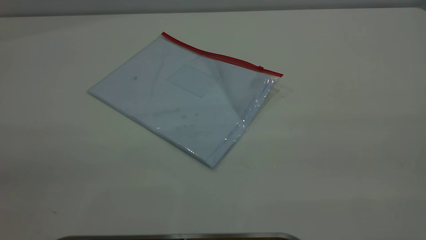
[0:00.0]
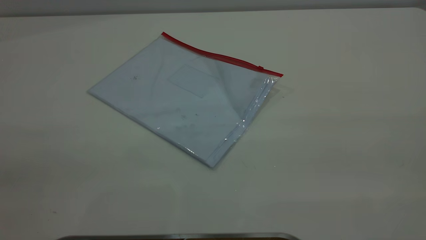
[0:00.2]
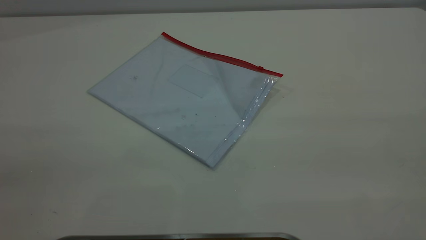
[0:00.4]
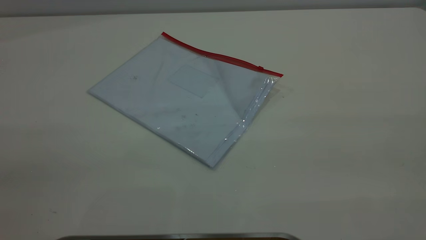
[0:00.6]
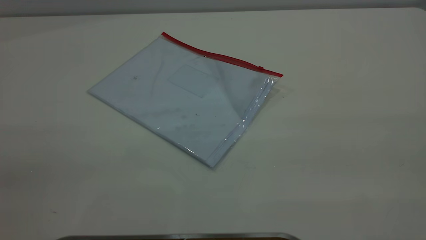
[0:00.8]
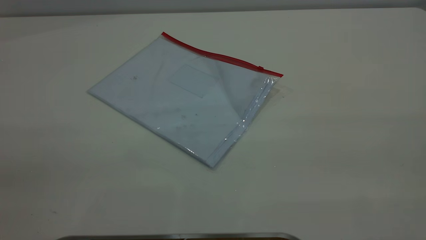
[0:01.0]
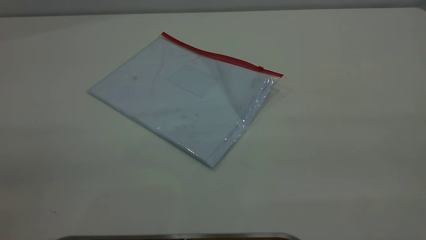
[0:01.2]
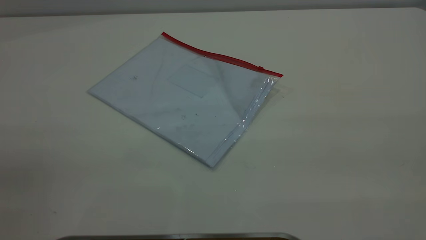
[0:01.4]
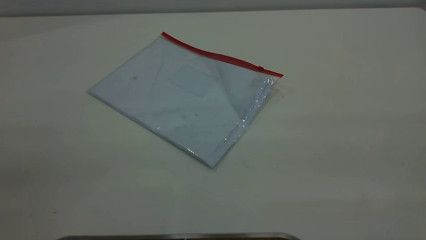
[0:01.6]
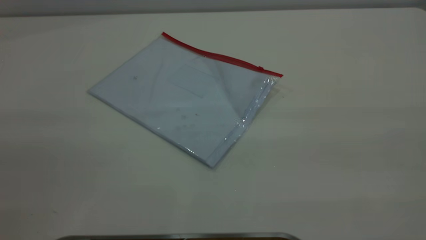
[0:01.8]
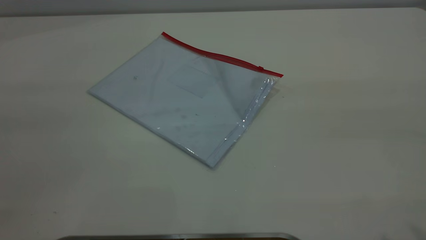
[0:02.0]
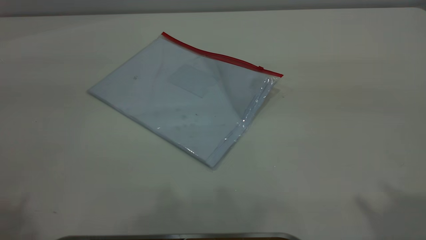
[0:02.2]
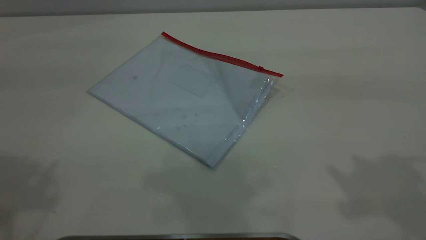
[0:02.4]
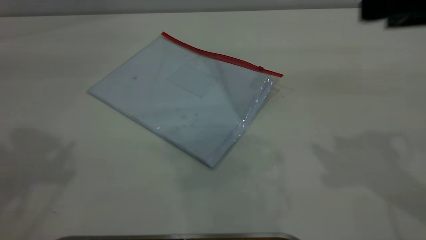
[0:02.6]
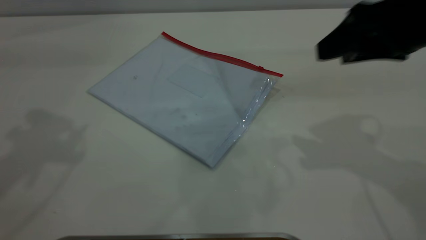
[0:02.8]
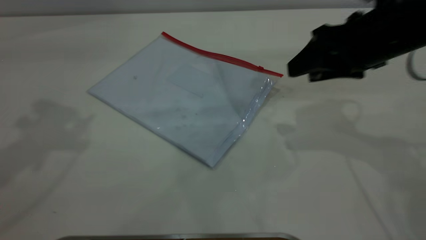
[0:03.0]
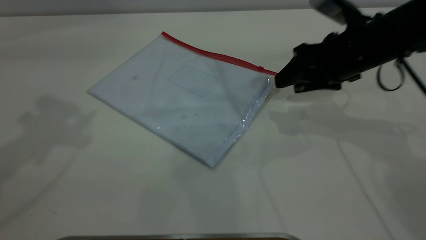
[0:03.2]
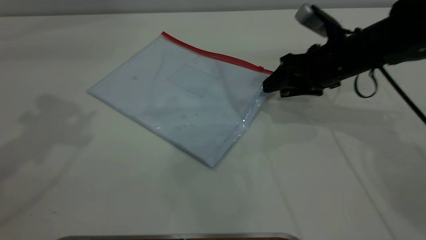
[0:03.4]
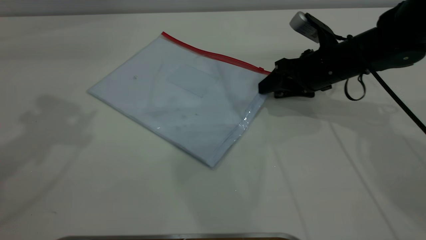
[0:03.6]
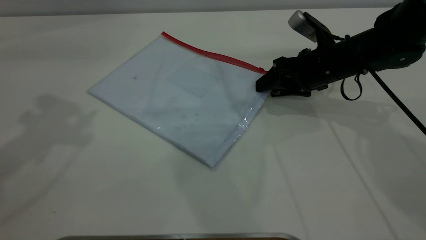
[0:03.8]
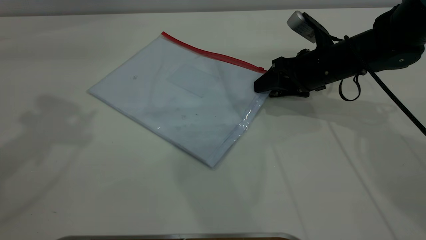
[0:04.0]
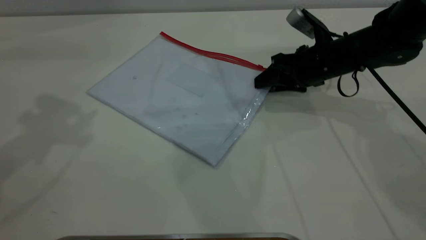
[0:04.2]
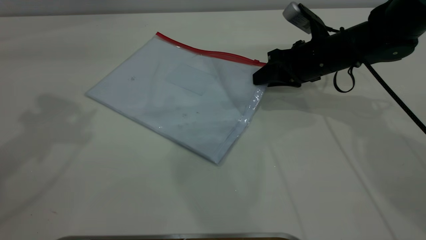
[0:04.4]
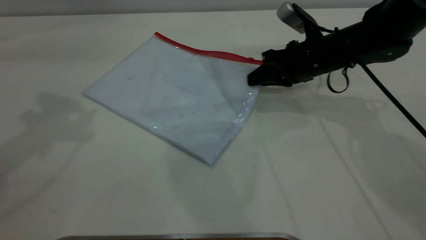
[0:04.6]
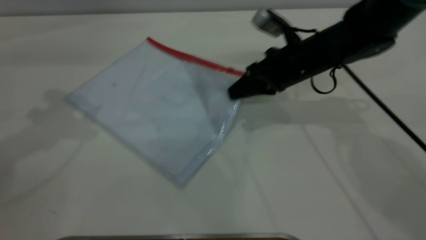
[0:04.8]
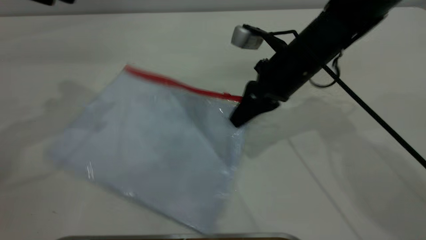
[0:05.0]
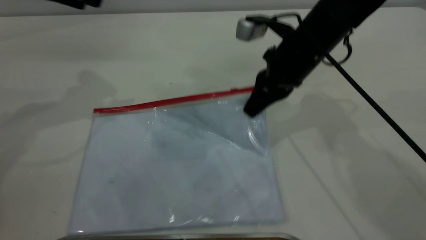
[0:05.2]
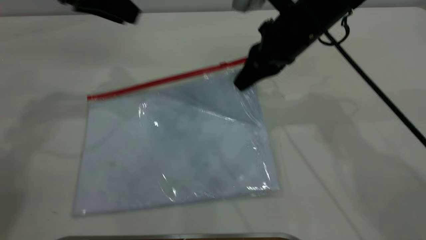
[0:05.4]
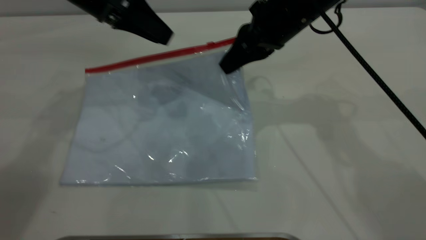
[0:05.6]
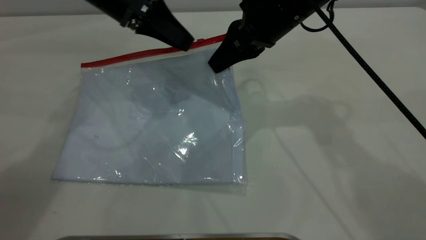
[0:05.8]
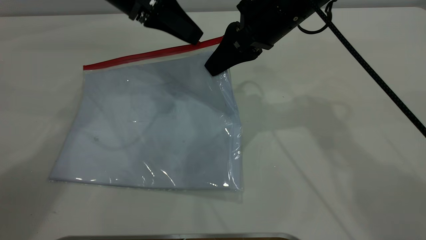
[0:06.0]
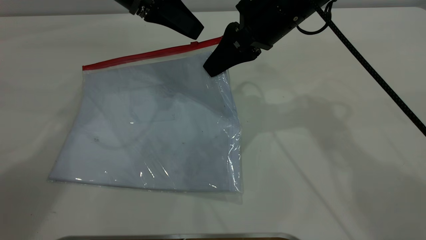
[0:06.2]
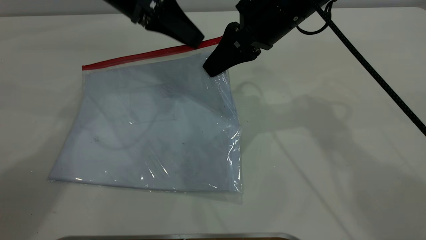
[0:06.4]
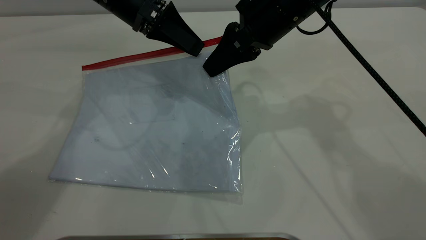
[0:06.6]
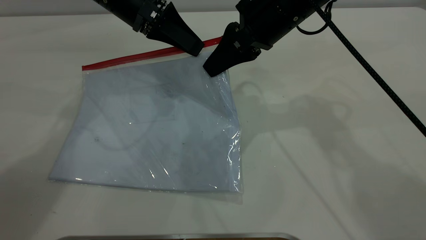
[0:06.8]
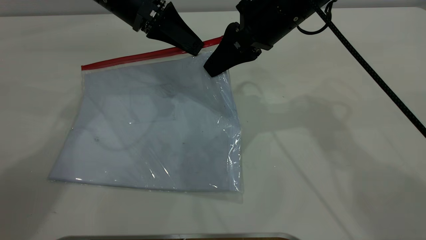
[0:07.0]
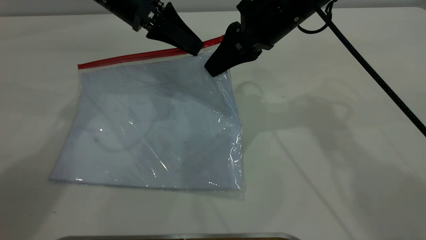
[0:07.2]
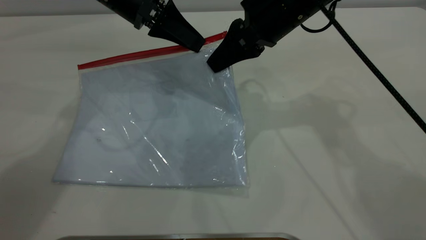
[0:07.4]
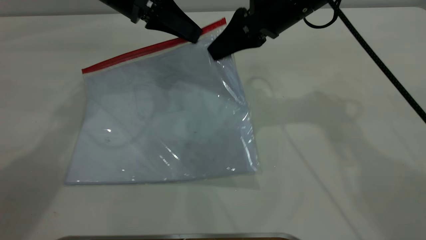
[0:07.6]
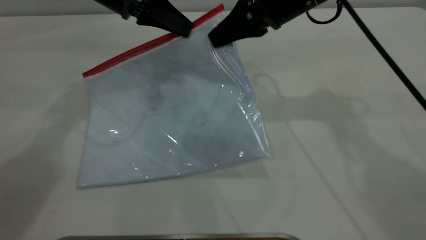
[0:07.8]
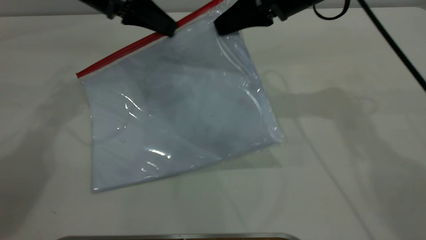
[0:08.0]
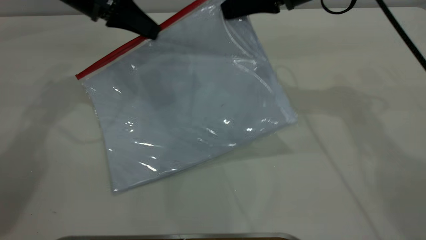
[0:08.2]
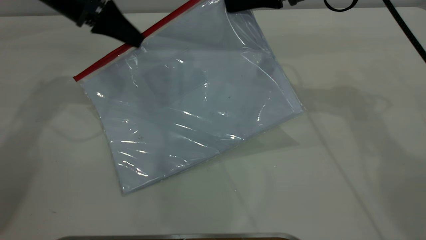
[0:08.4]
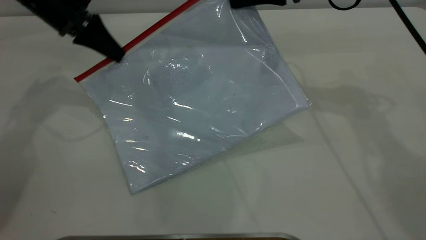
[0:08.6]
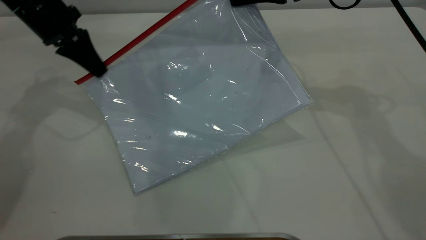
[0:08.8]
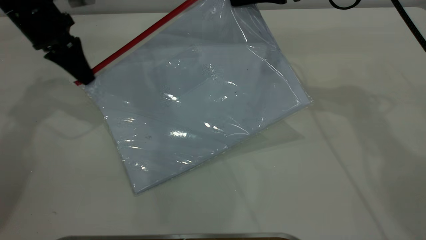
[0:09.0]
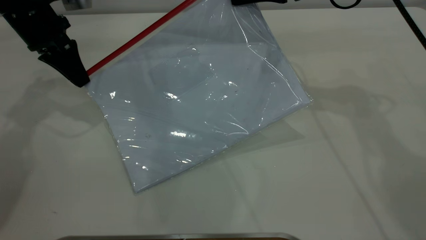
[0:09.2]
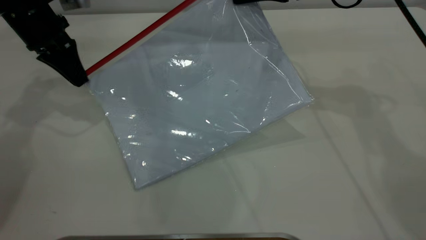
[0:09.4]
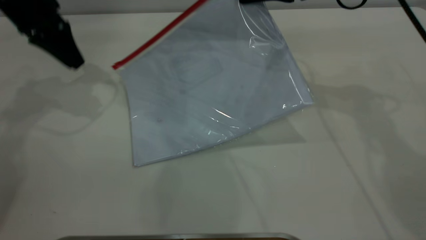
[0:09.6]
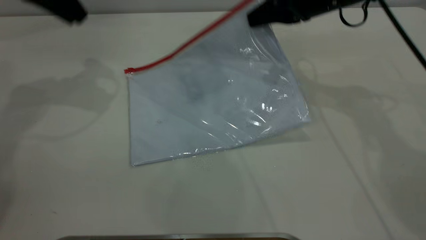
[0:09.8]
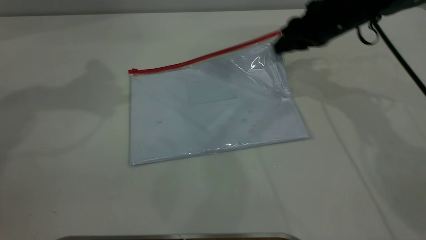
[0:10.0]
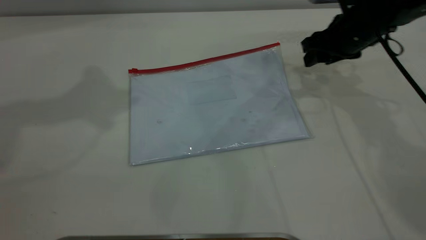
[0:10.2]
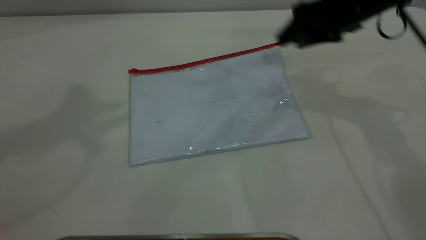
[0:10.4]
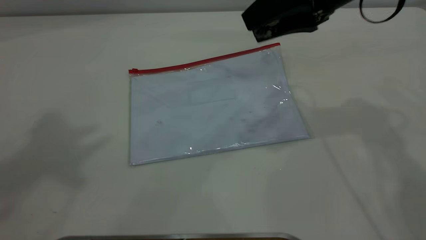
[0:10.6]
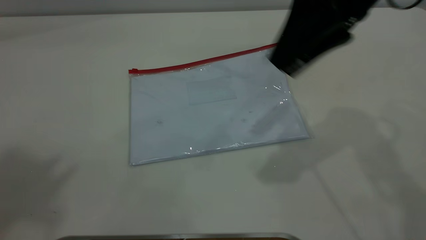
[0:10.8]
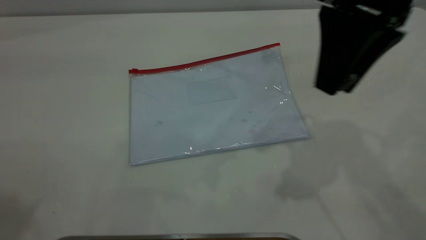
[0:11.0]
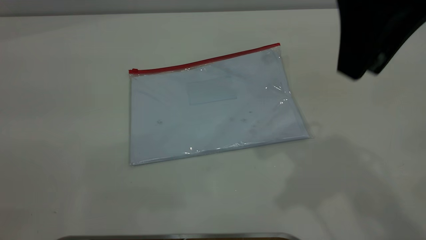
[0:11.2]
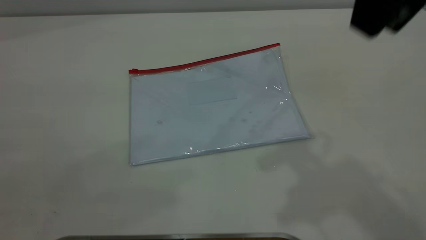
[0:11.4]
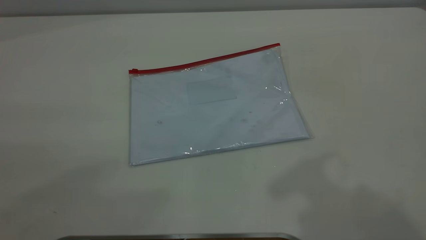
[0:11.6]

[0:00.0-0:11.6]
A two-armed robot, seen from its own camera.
Step, 0:00.0 to 0:05.4: Pick up the transparent plastic bag with the right gripper.
Step, 0:05.6 to 0:09.6: Pulling up the zipper on the transparent plastic bag with the left gripper to close it.
Step, 0:09.8 to 0:11.2: Place the transparent plastic bag.
0:00.0 to 0:01.4: Both grippers stay about where they are.
0:01.4 to 0:02.8: The right gripper is displaced forward and downward by approximately 30 cm.
0:02.8 to 0:04.4: The right gripper heads downward and forward, covering some 20 cm, and closes its fingers.
0:04.4 to 0:05.8: The left gripper moves to the right, downward and forward, some 20 cm. The right gripper shifts roughly 15 cm upward and to the left, and closes up.
0:05.8 to 0:07.2: The left gripper closes its fingers.
0:07.2 to 0:08.8: The right gripper goes some 5 cm to the right, while the left gripper moves to the left, roughly 15 cm.
0:08.8 to 0:10.2: The left gripper shifts some 30 cm upward, and opens. The right gripper goes roughly 10 cm downward and to the right, and opens up.
0:10.2 to 0:11.6: The right gripper heads upward and backward, covering approximately 40 cm.

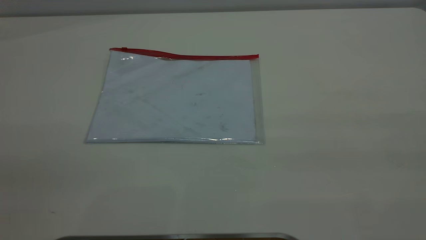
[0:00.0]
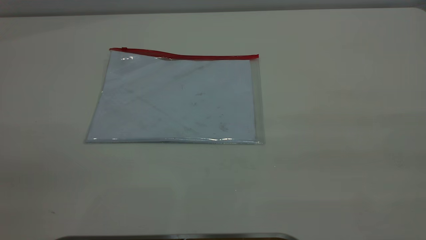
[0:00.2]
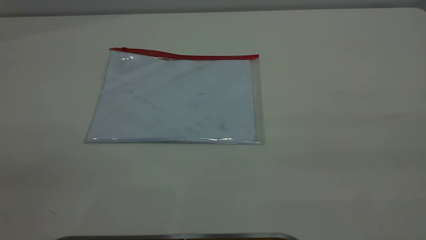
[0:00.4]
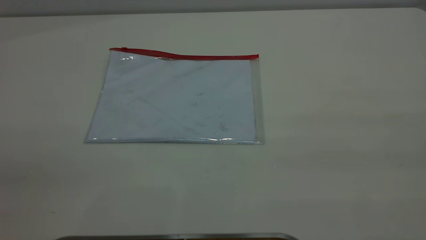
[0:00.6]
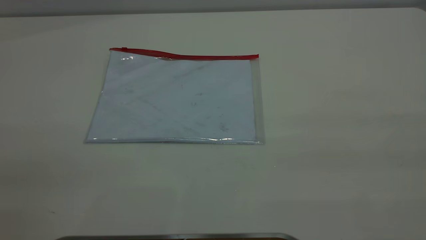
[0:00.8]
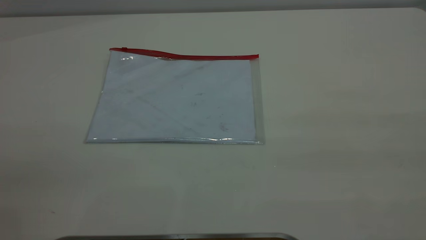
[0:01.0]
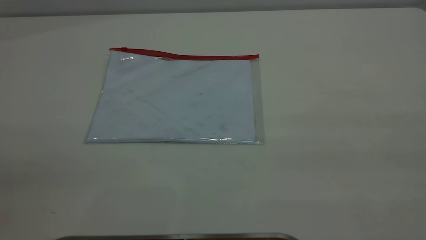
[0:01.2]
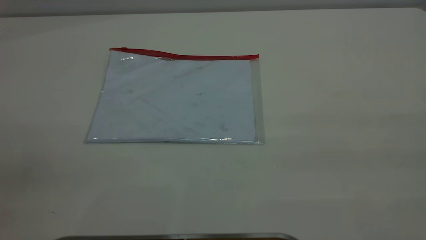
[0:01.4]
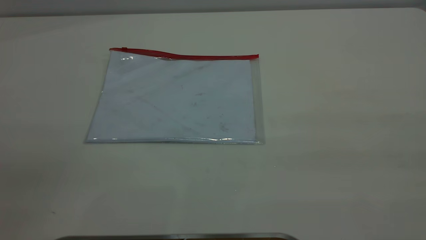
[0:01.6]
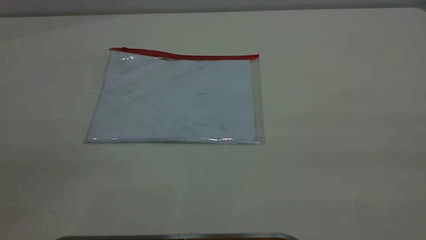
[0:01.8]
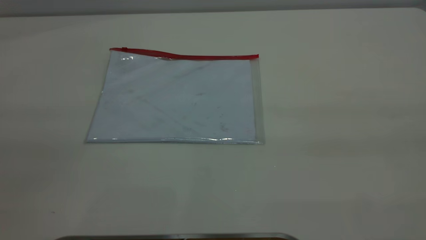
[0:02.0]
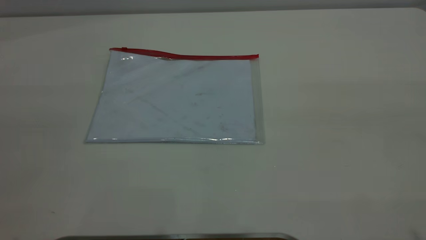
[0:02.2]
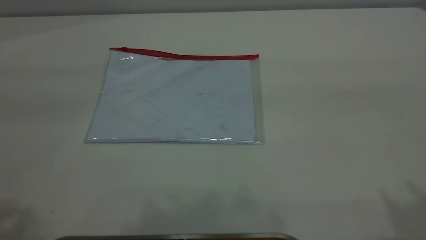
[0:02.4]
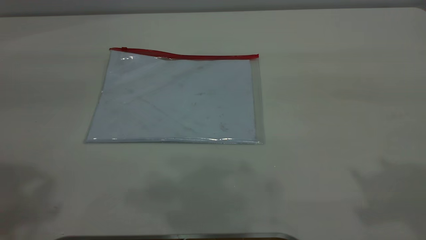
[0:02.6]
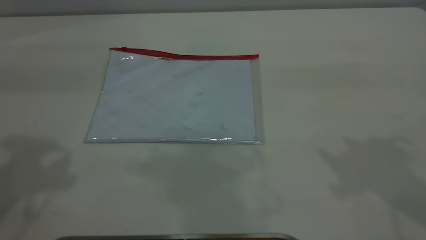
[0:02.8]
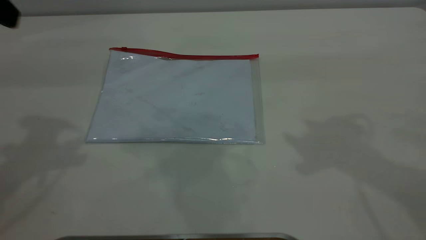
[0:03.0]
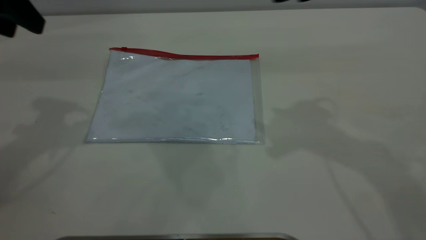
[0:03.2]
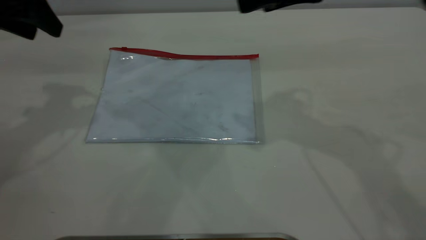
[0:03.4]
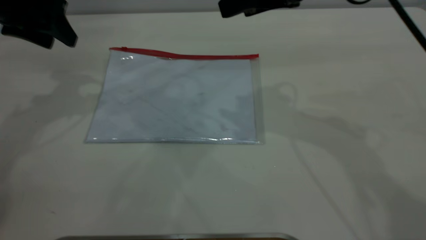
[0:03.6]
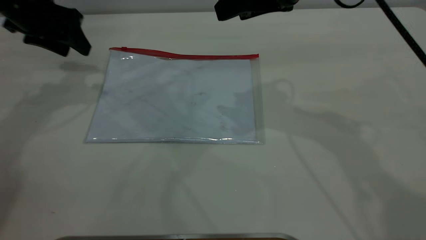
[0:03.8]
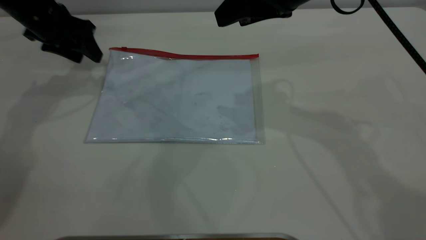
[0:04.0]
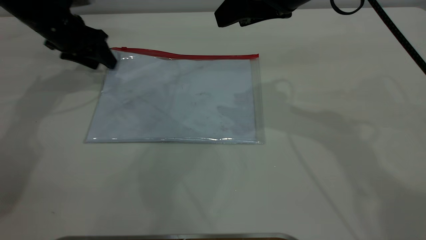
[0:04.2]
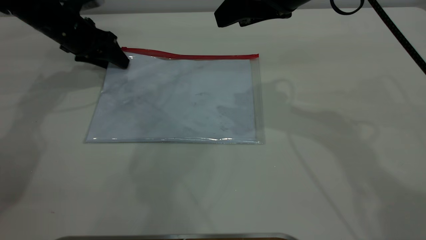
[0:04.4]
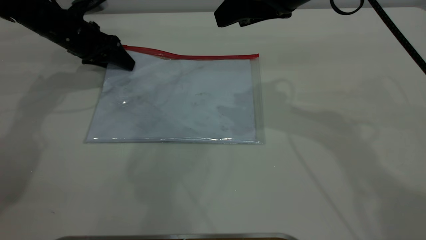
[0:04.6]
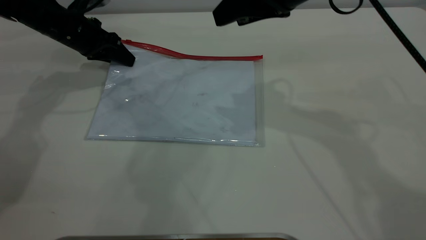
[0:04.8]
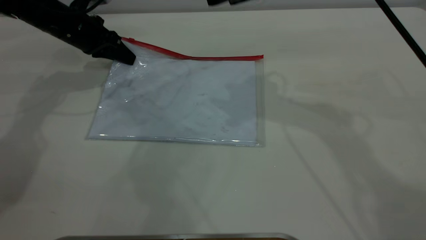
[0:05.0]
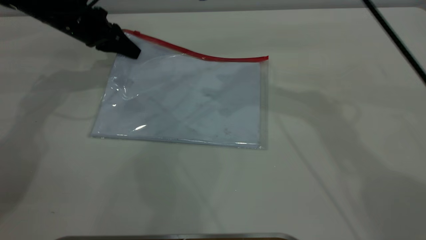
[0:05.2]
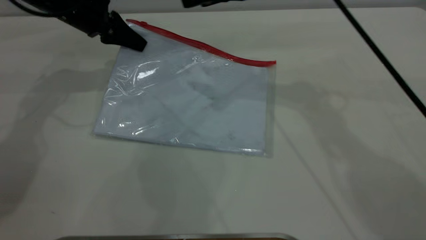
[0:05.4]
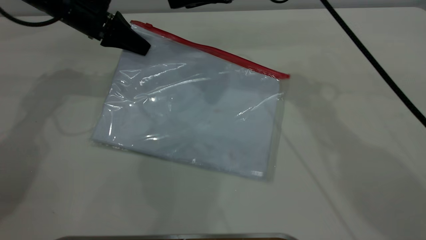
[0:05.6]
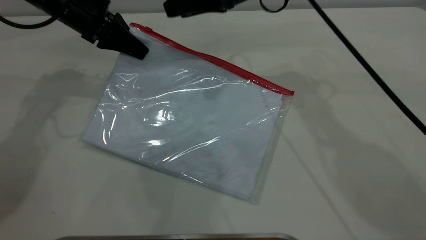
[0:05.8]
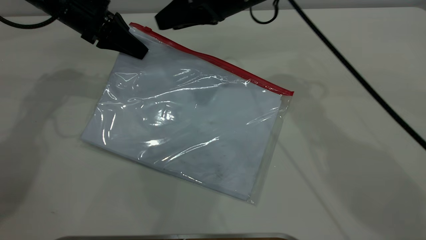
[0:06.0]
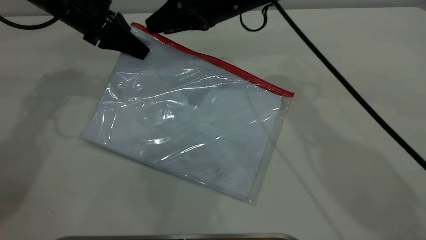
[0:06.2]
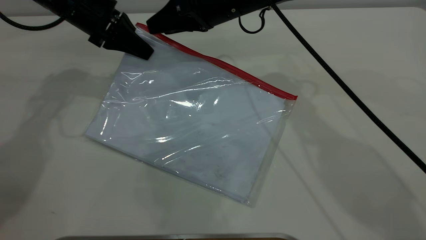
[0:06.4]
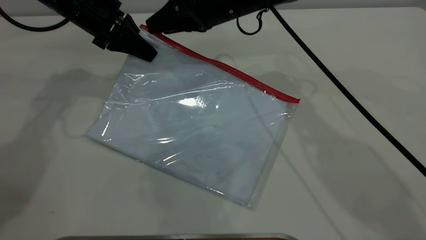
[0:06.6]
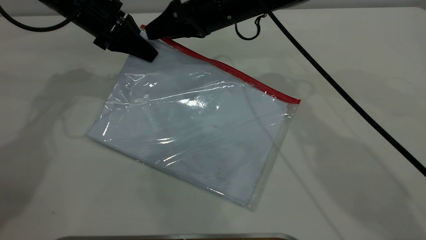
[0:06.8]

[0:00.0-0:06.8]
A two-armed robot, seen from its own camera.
Step, 0:00.0 to 0:05.0: Pick up the transparent plastic bag with the left gripper.
0:00.0 to 0:01.4: The two grippers keep their place.
0:02.8 to 0:04.0: The left gripper goes some 30 cm forward and downward. The right gripper goes some 20 cm forward, to the left and downward.
0:04.0 to 0:05.4: The left gripper is displaced to the right by roughly 5 cm, and closes up. The right gripper is displaced forward by some 5 cm.
0:05.4 to 0:06.8: The right gripper goes roughly 10 cm downward and to the left.
